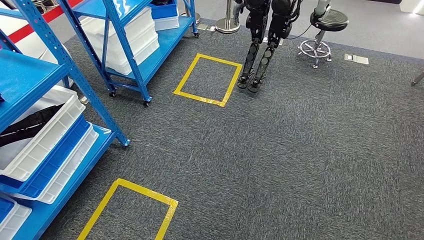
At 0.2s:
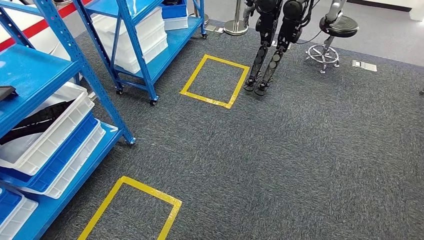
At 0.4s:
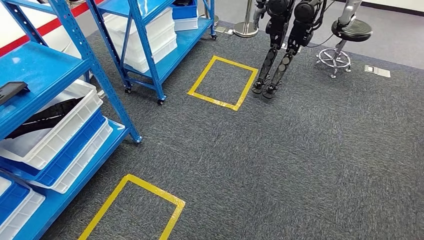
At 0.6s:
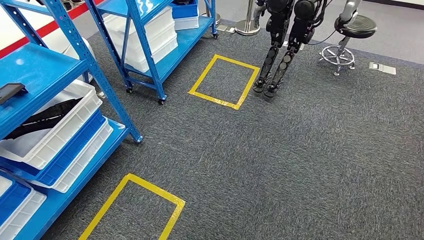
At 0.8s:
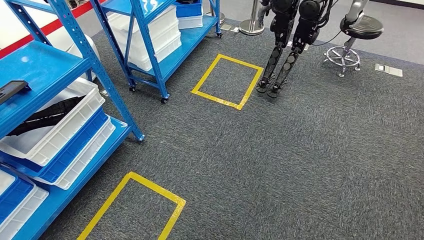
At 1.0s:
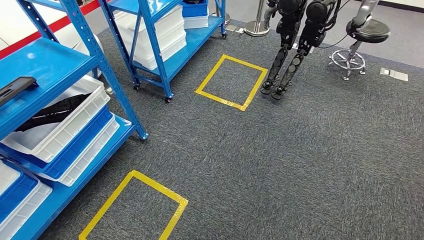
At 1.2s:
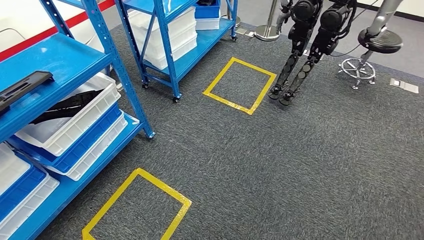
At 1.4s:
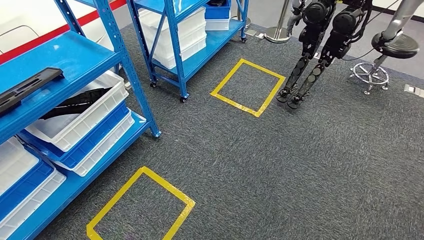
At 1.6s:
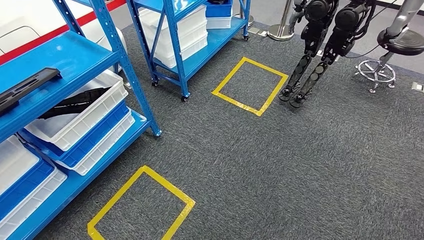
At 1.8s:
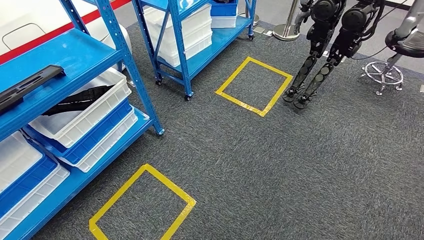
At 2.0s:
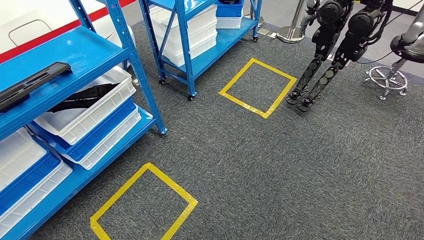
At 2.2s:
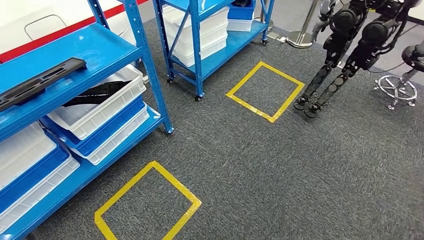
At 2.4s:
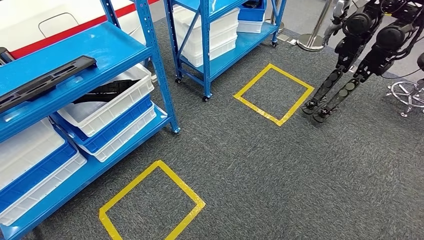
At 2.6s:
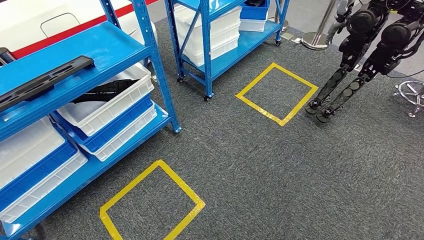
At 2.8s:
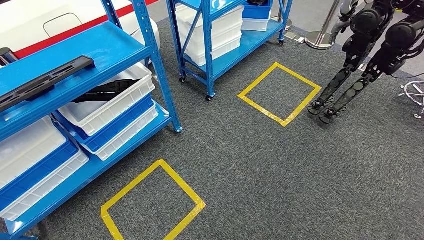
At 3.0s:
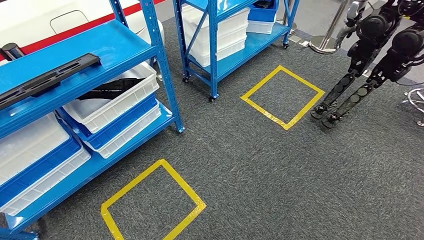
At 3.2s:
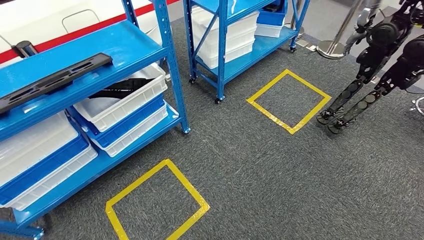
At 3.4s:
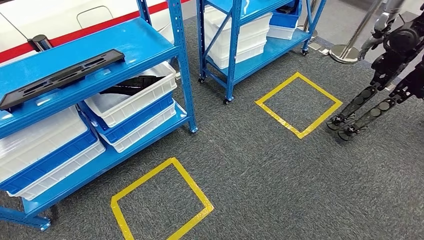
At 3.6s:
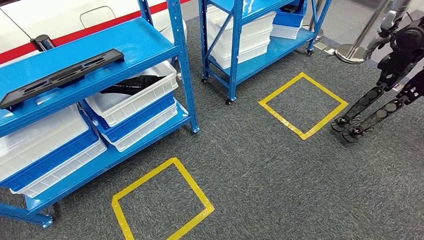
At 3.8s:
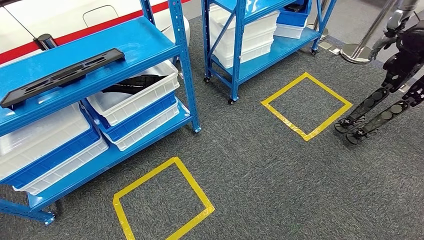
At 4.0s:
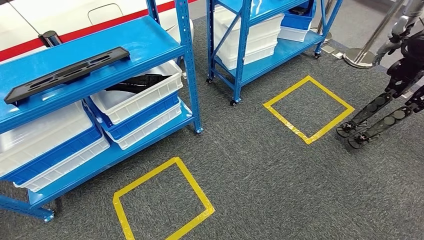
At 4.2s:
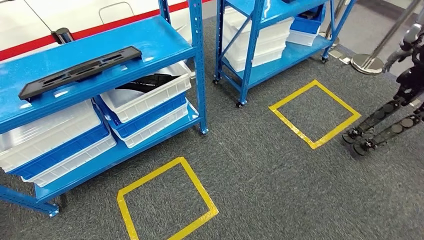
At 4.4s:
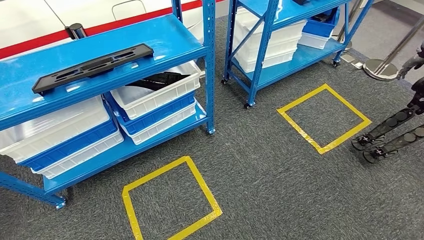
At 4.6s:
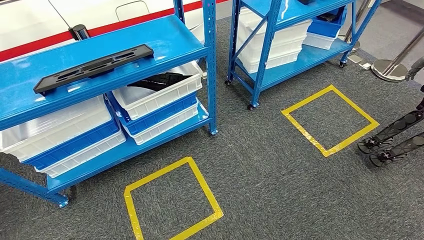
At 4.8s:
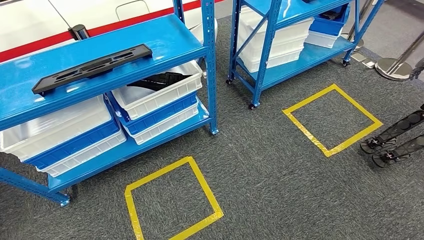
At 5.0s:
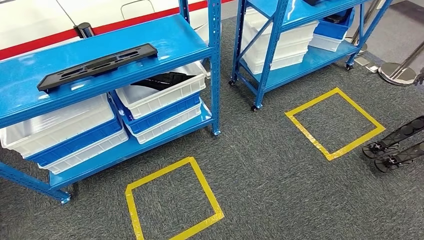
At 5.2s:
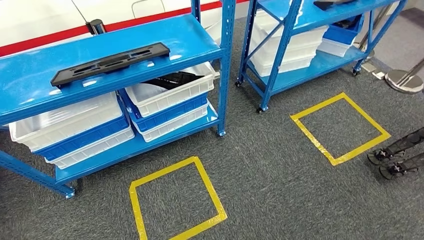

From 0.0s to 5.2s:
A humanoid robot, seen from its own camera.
Step, from 0.0s to 5.2s: Move to the initial position of the shelf.

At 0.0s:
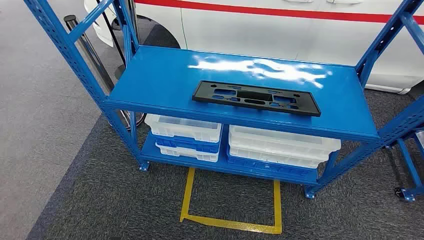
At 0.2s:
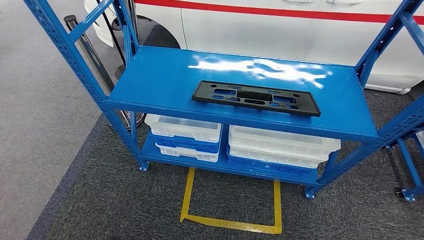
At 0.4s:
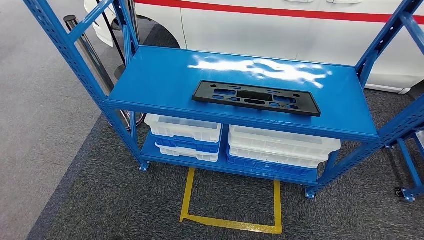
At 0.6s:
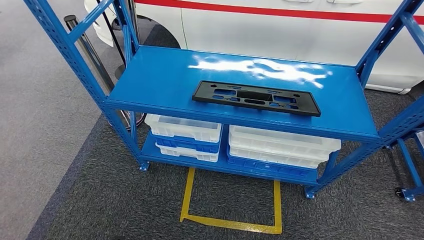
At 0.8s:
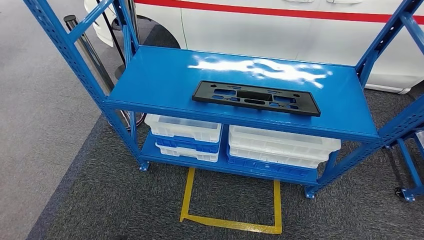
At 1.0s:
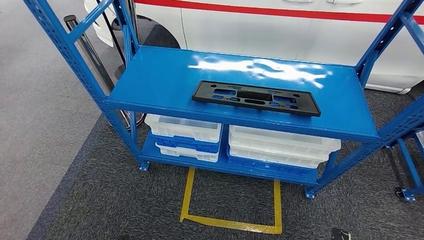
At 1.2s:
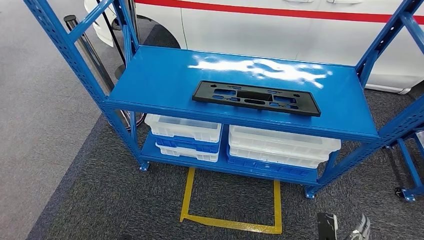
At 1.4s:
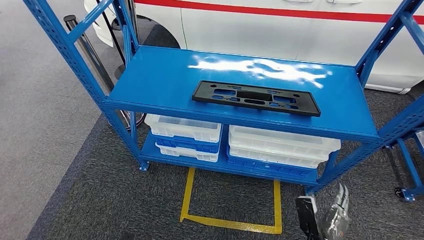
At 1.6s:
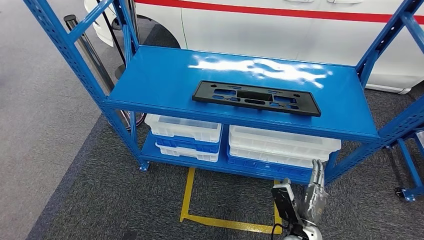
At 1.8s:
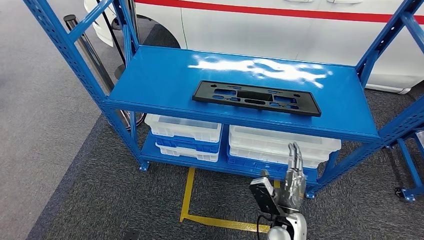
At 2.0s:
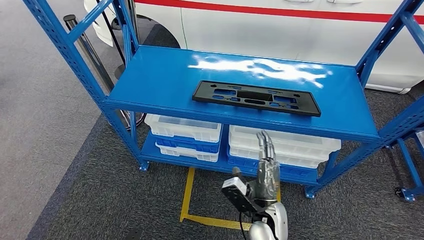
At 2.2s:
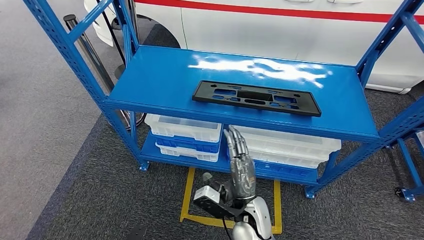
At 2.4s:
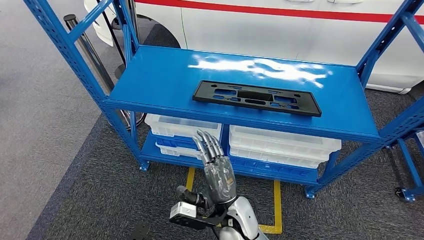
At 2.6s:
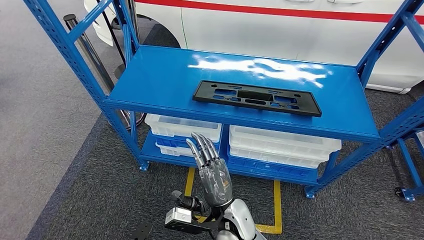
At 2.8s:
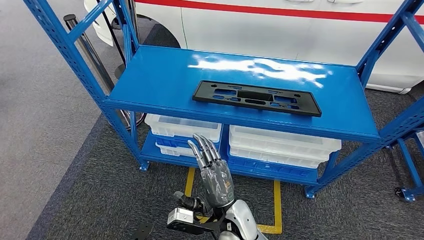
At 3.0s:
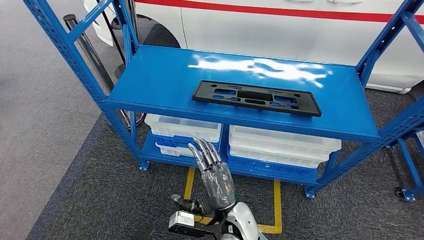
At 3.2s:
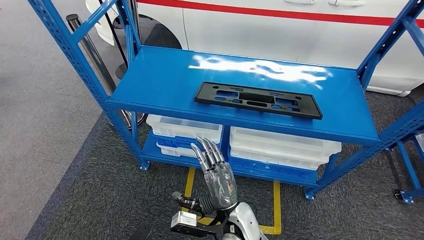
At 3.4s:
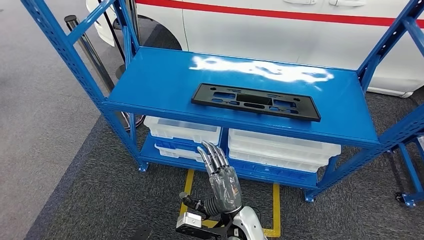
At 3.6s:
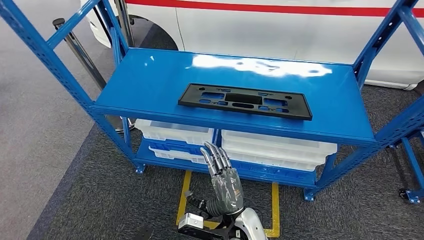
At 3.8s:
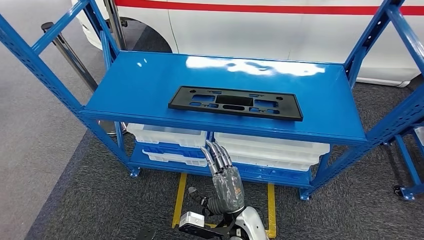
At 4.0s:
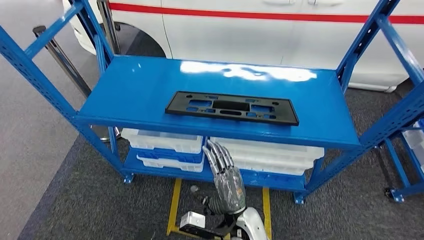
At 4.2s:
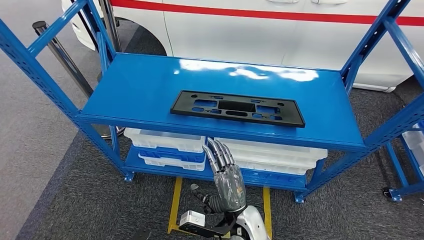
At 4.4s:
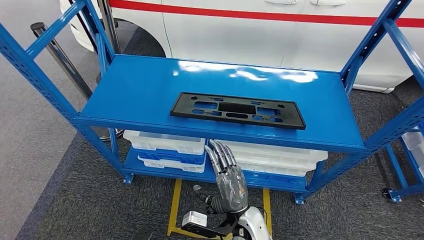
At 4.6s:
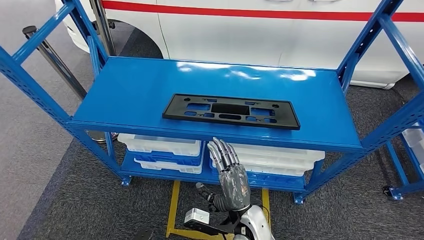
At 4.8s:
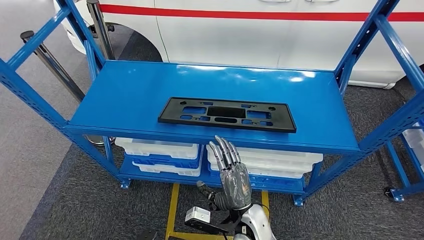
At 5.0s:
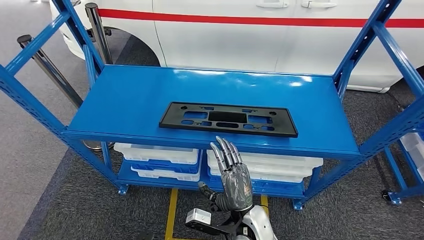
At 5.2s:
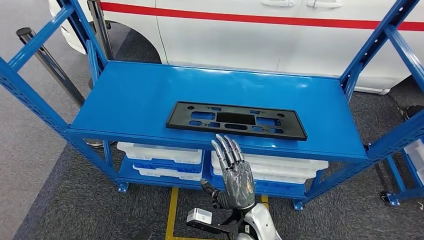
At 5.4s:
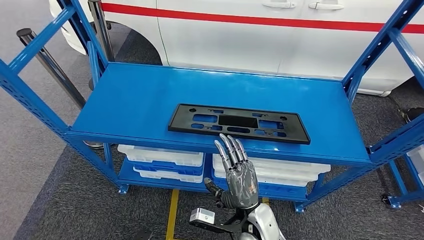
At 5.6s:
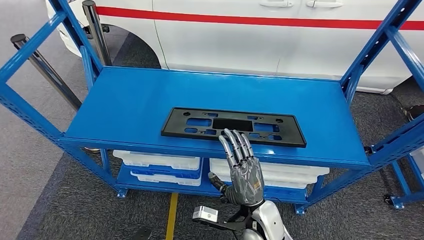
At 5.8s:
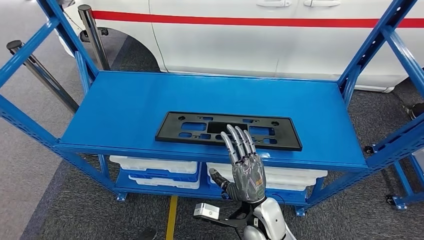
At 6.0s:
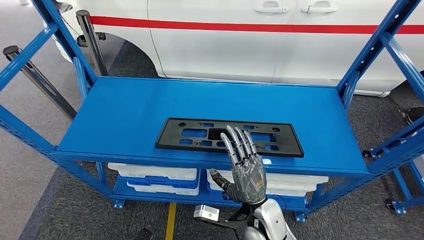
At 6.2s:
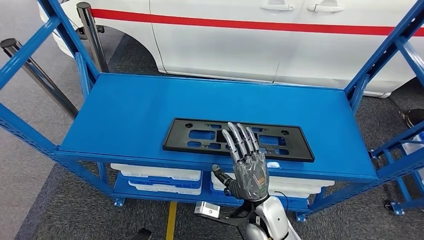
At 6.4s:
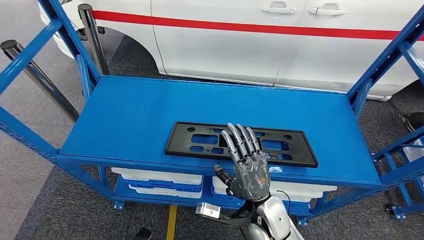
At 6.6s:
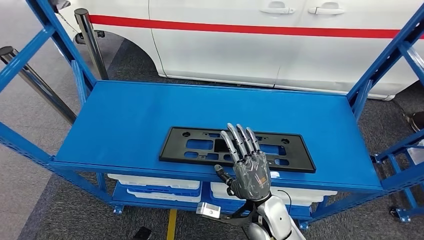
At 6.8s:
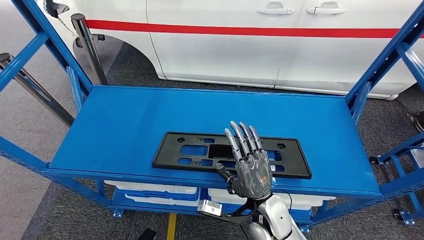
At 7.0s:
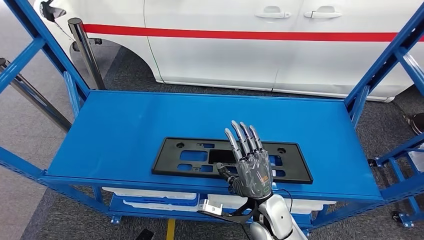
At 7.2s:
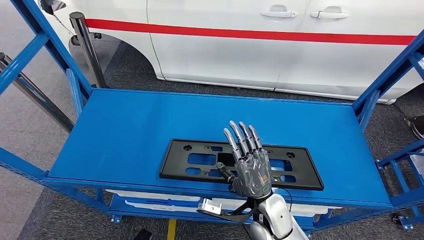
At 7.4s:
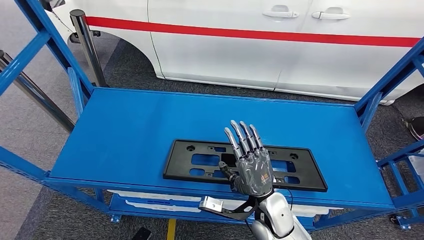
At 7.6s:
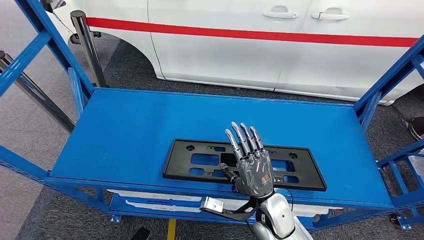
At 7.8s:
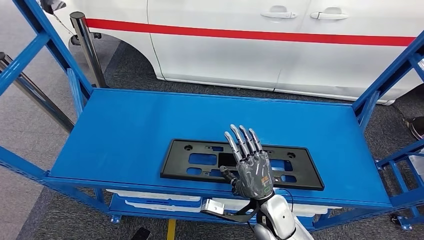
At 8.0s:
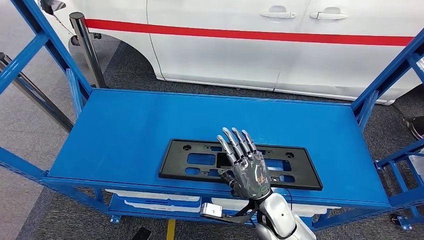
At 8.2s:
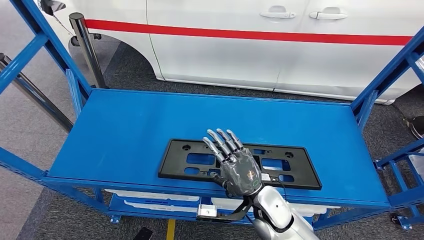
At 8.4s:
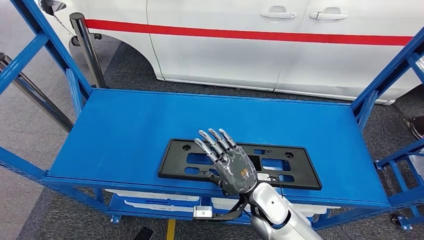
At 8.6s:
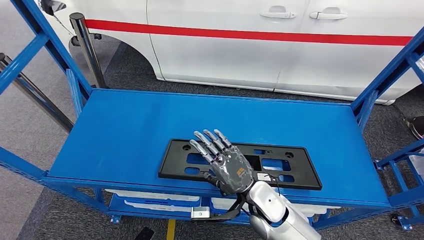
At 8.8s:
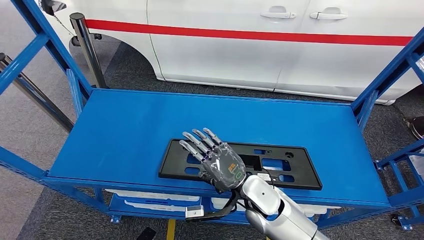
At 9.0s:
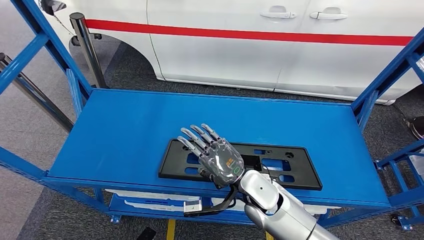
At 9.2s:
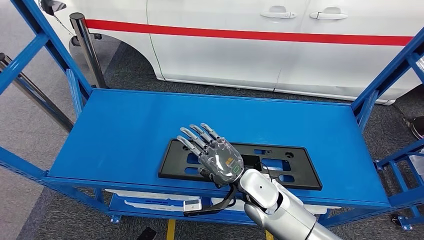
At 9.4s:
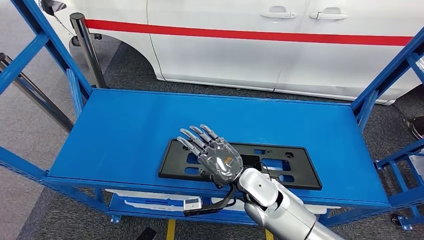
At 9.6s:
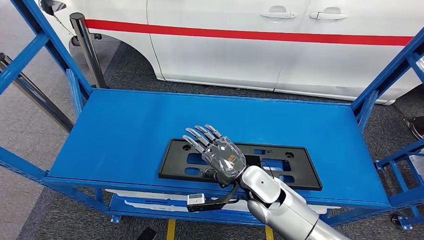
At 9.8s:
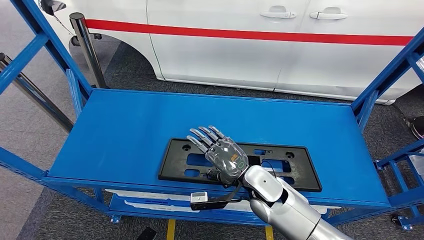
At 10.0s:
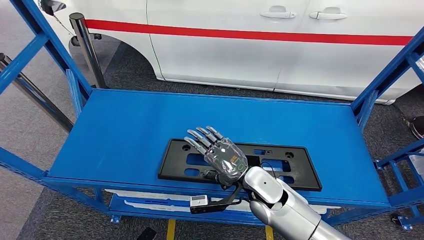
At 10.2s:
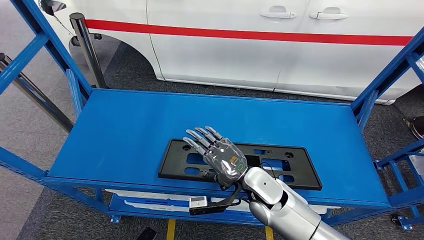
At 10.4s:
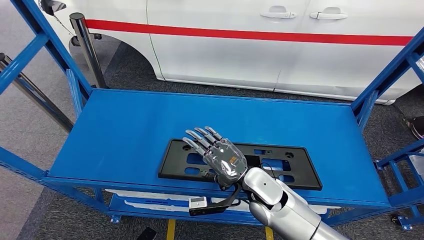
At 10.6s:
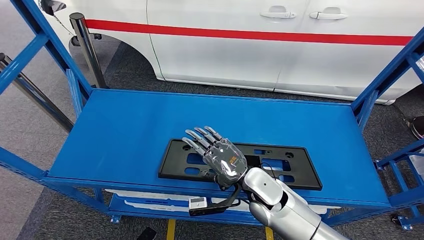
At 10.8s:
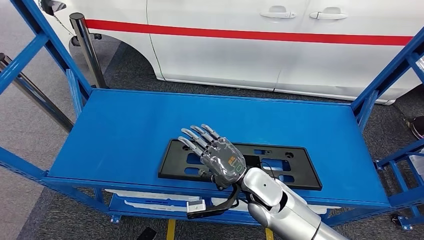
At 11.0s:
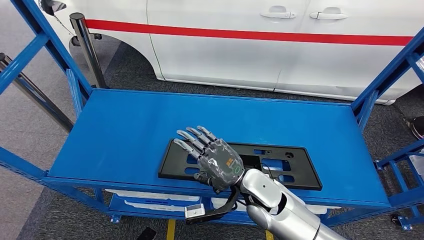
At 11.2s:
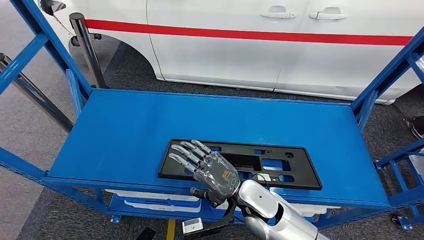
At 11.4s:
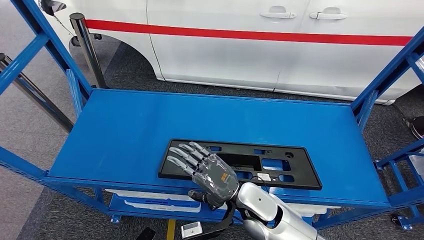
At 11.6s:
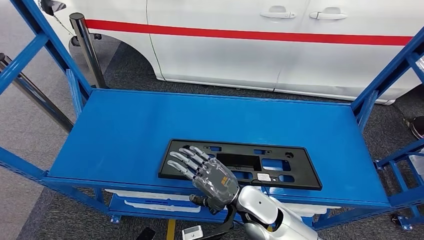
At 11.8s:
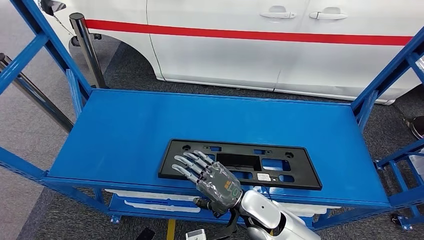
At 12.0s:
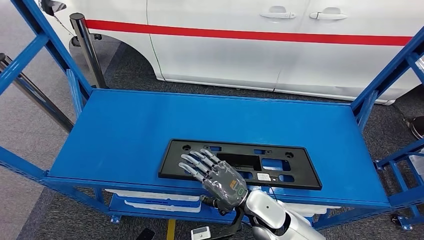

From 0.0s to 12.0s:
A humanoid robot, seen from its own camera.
From 1.6s to 3.0s: The right hand travels to the left and upward by about 20 cm.
From 7.6s to 9.0s: The right hand moves some 5 cm.
From 9.0s to 10.4s: The hands make only small movements.
From 10.4s to 12.0s: The right hand ends up approximately 5 cm from where it was.
